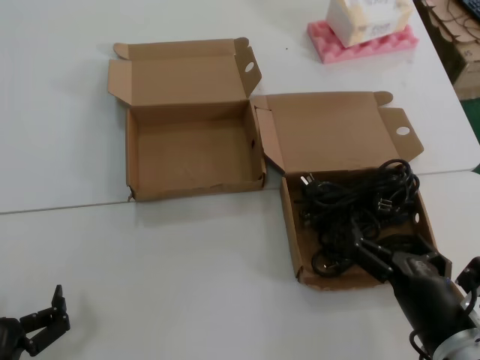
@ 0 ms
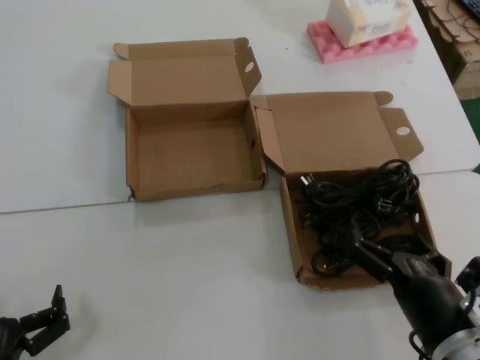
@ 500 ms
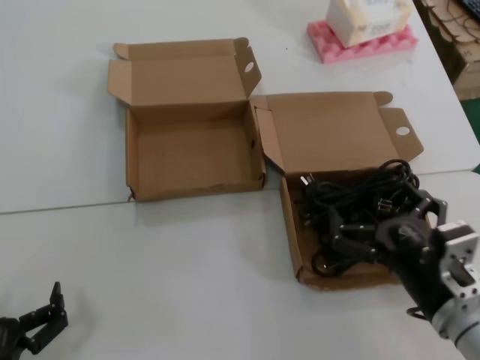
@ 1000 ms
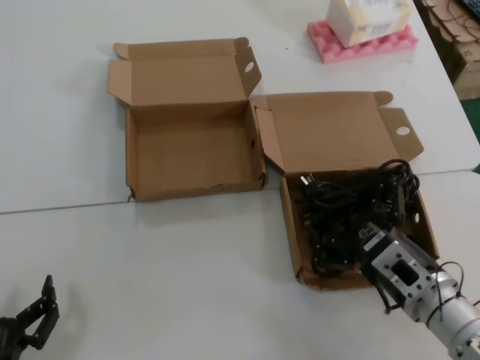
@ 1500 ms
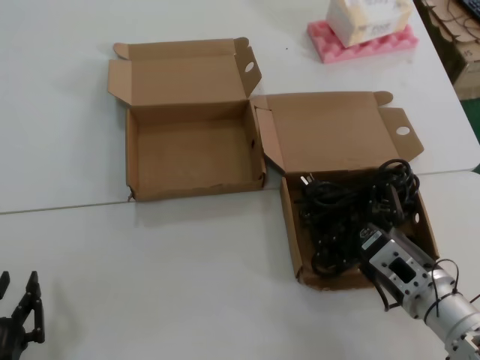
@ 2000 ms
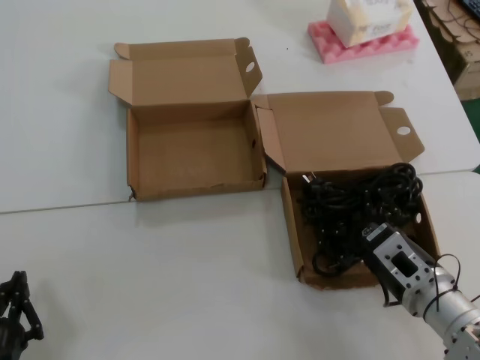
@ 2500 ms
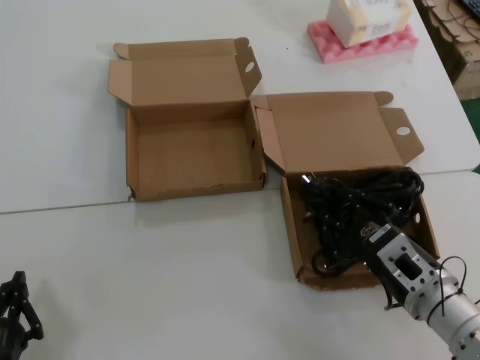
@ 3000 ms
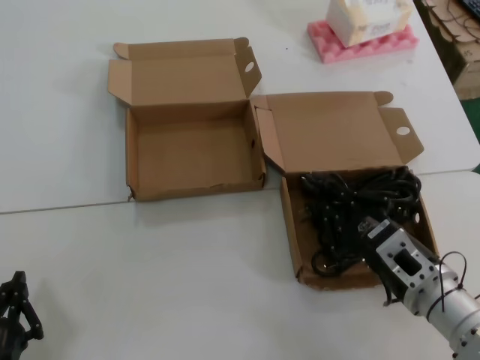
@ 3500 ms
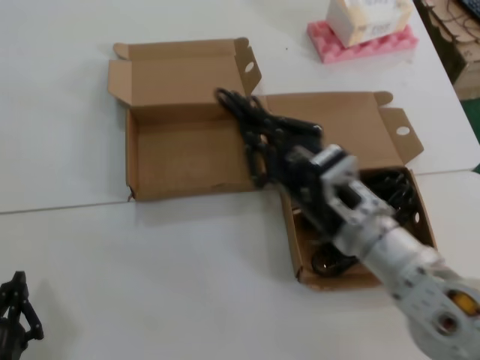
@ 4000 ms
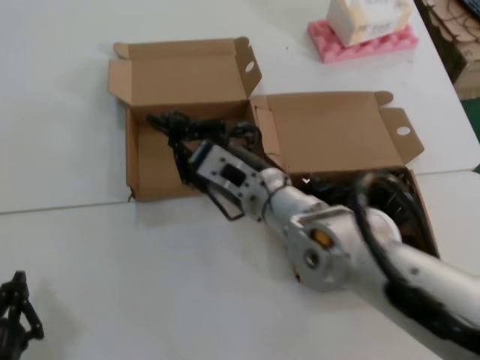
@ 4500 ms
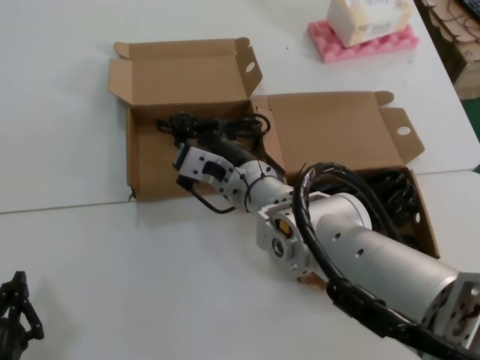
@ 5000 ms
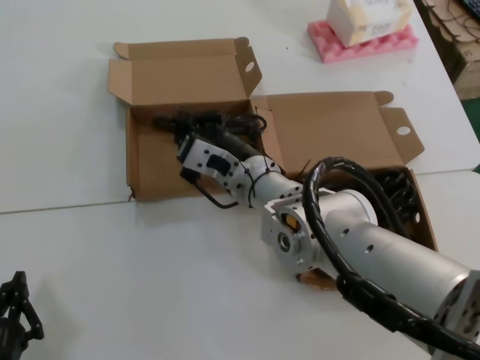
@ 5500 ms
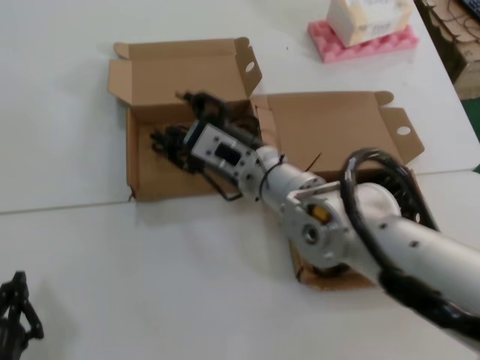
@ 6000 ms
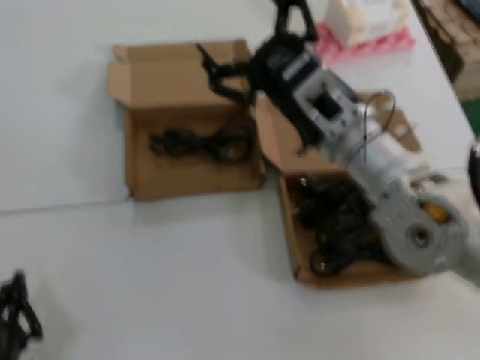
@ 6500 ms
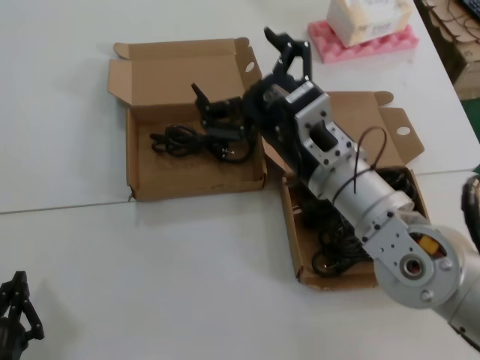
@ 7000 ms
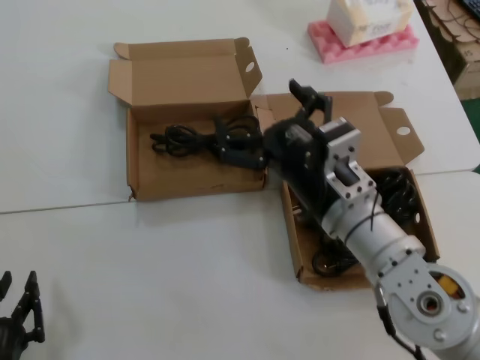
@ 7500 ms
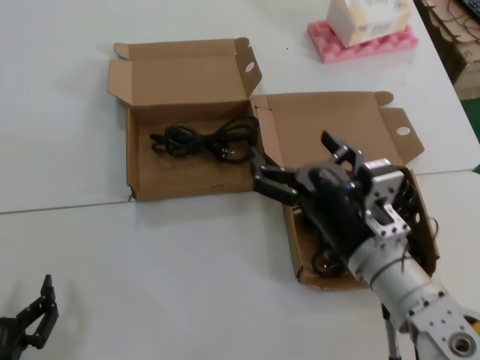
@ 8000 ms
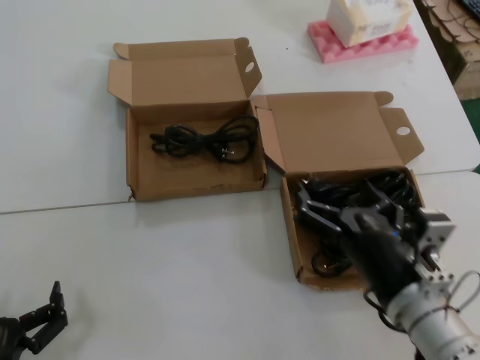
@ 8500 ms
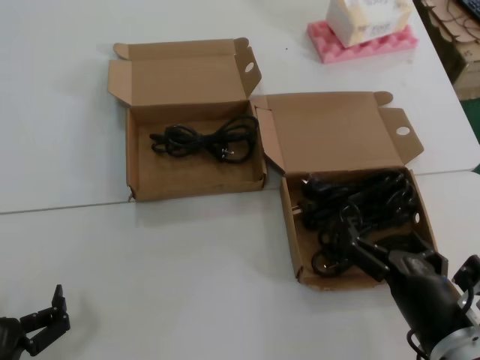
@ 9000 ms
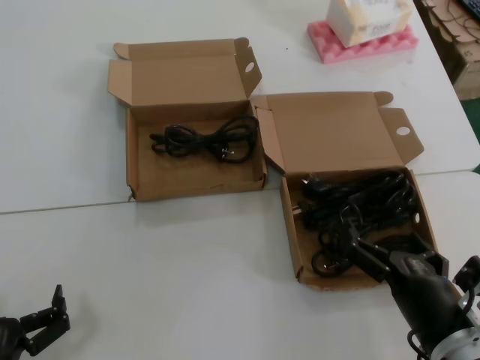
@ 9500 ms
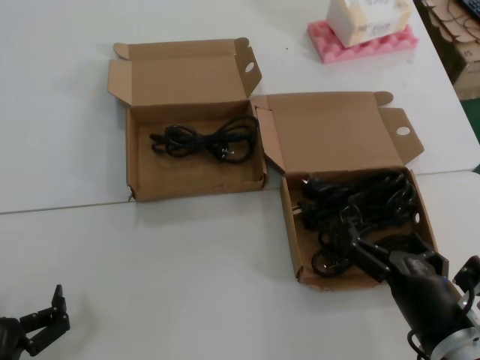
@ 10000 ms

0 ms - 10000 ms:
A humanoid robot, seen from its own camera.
Task of the whole recording: Pick up the power cord from the box containing it and place it in another box.
Step, 0 ms - 3500 ms: Grasp the data cable.
Step, 4000 ms - 5500 ms: Place the data cable in the another box.
0 ms - 2000 ms: The right hand moves forward, about 10 cm.
2000 ms - 4000 ms: The right hand shifts roughly 15 cm upward and to the left.
4000 ms - 6000 ms: The right hand shifts approximately 15 cm forward and to the left.
6000 ms - 8000 ms: The right hand moves backward, to the right and downward, some 15 cm.
8000 ms - 10000 ms: The right hand moves backward, downward and to the right, some 15 cm.
